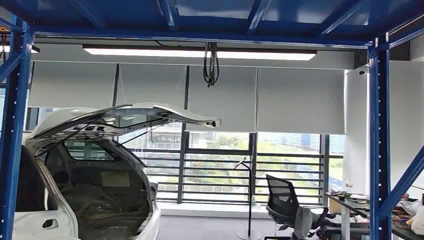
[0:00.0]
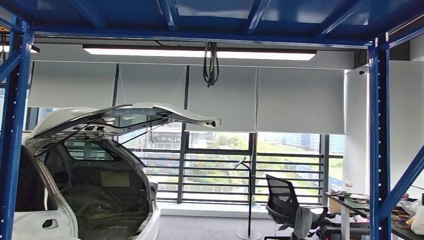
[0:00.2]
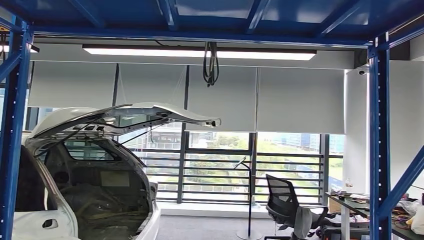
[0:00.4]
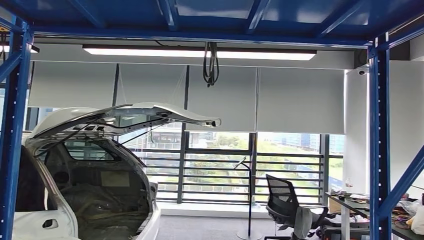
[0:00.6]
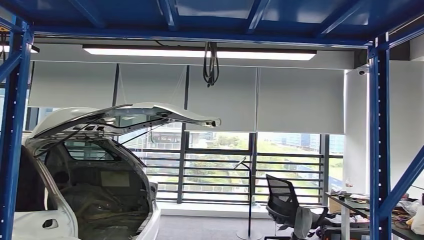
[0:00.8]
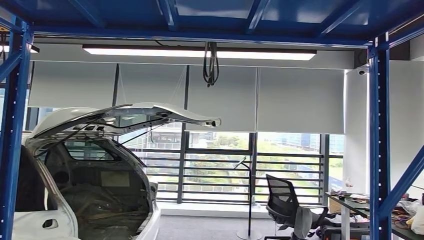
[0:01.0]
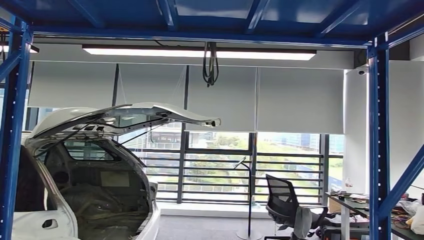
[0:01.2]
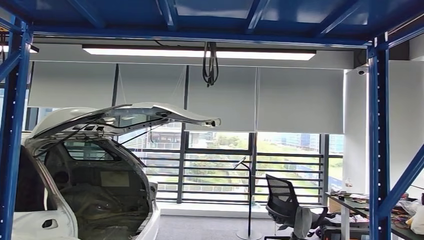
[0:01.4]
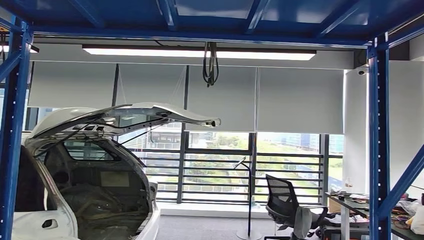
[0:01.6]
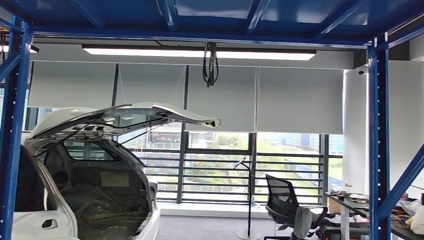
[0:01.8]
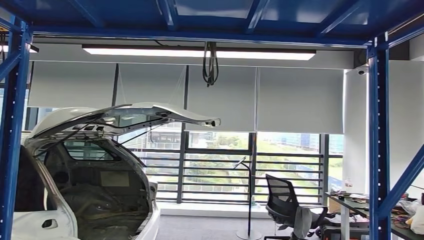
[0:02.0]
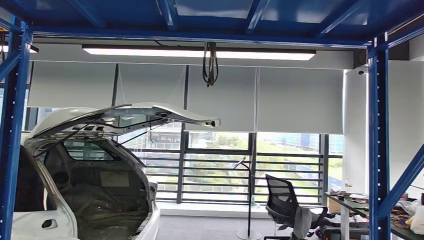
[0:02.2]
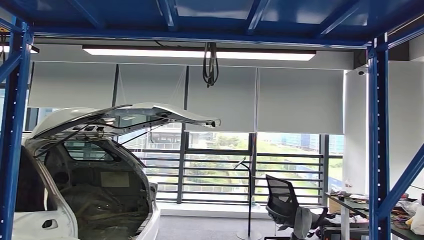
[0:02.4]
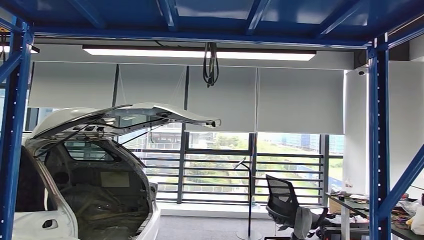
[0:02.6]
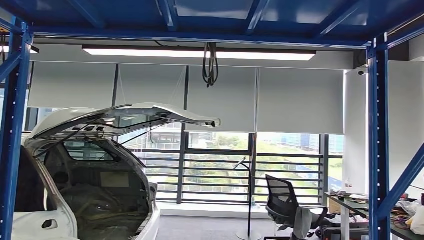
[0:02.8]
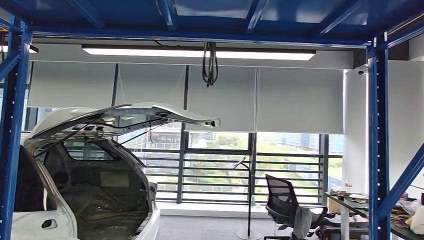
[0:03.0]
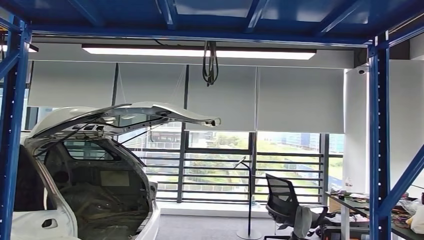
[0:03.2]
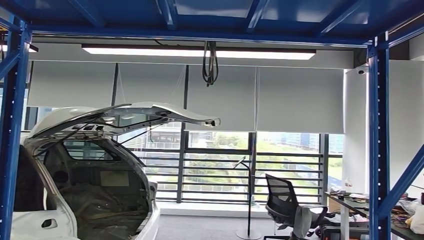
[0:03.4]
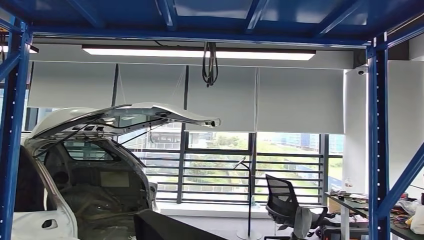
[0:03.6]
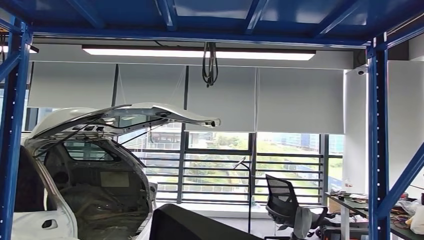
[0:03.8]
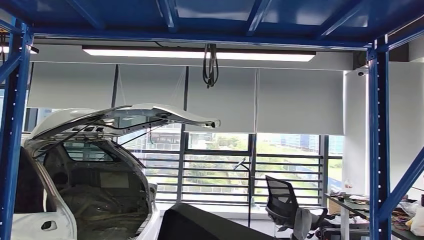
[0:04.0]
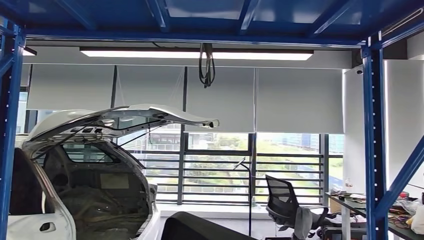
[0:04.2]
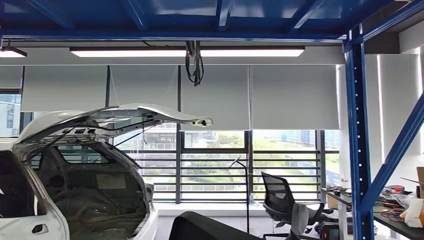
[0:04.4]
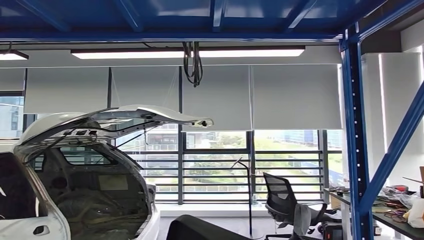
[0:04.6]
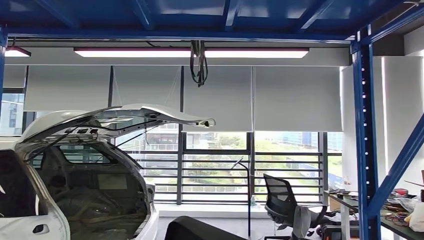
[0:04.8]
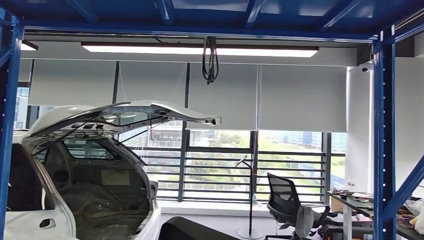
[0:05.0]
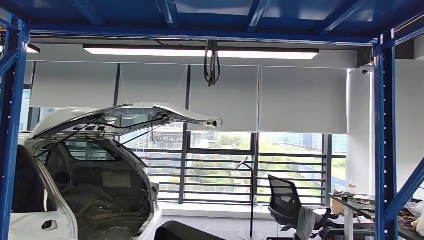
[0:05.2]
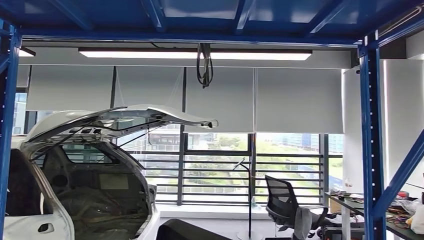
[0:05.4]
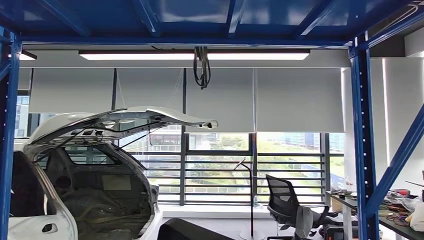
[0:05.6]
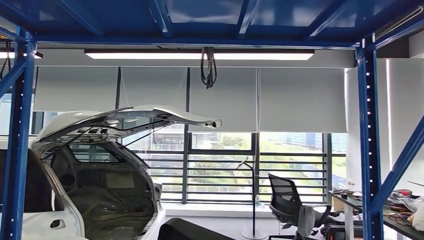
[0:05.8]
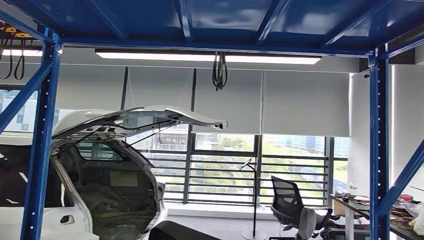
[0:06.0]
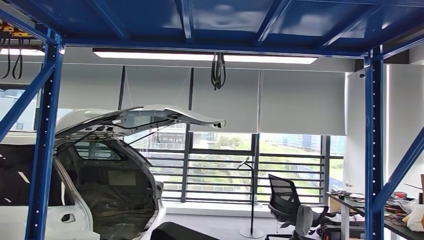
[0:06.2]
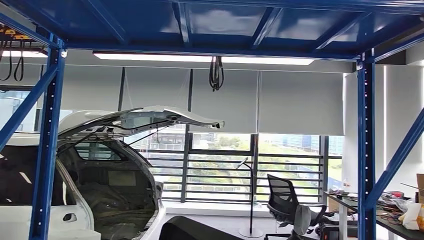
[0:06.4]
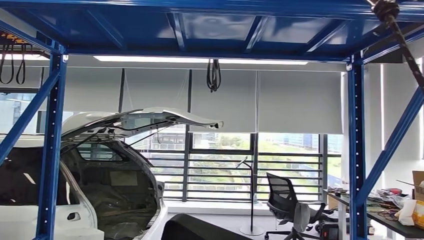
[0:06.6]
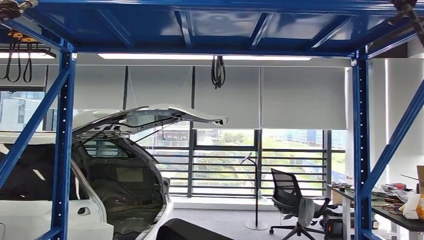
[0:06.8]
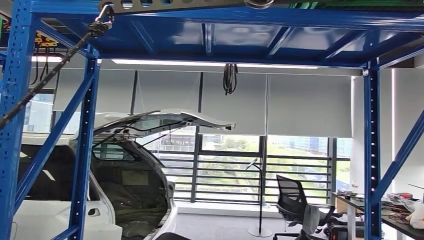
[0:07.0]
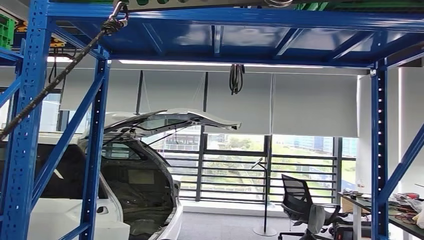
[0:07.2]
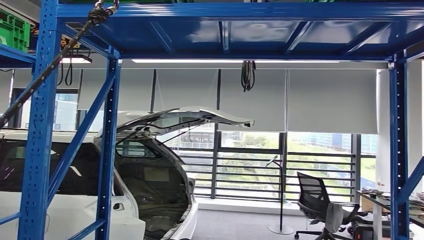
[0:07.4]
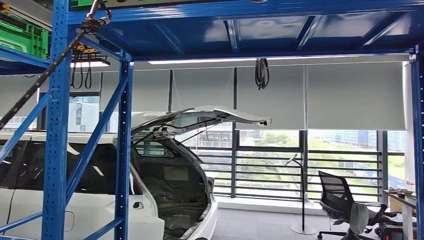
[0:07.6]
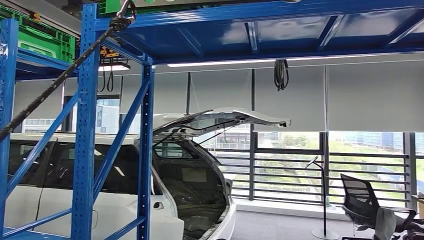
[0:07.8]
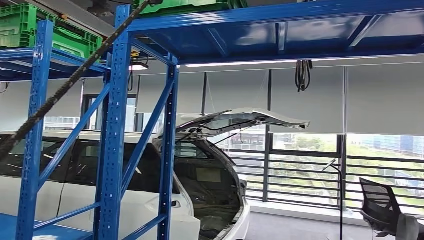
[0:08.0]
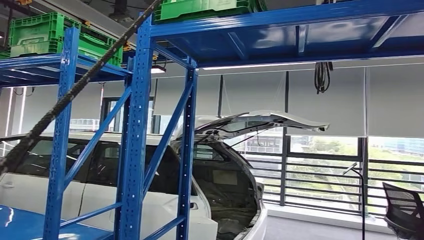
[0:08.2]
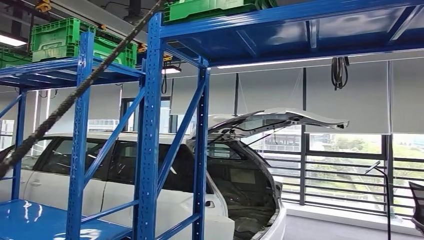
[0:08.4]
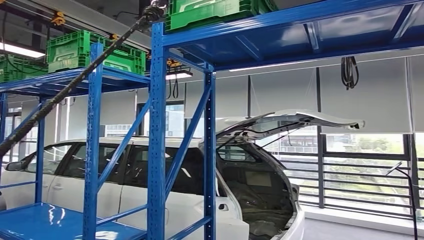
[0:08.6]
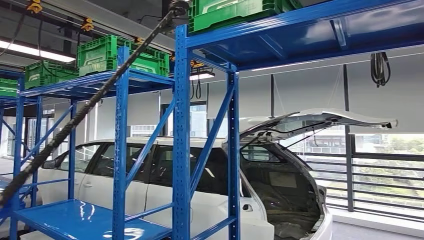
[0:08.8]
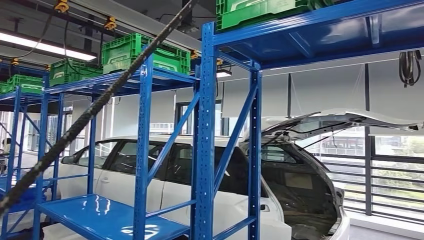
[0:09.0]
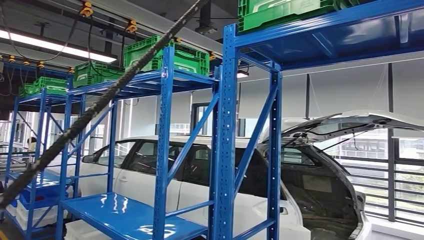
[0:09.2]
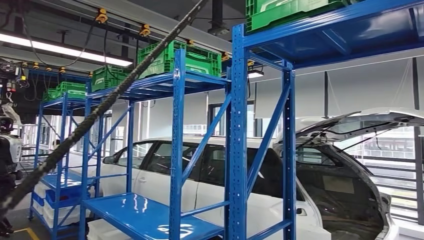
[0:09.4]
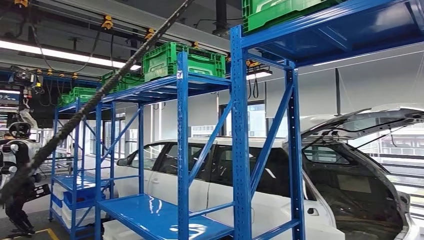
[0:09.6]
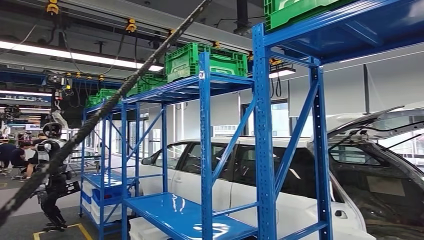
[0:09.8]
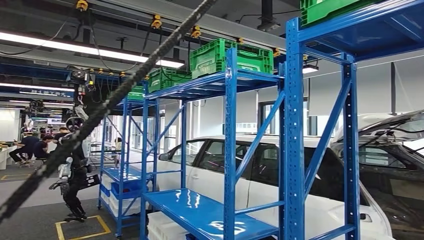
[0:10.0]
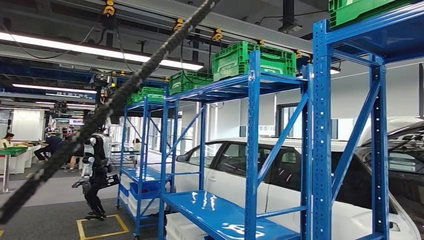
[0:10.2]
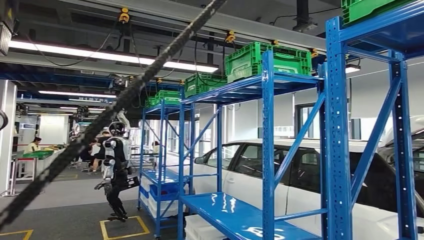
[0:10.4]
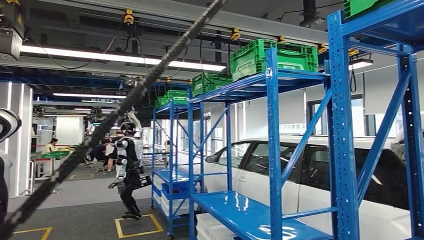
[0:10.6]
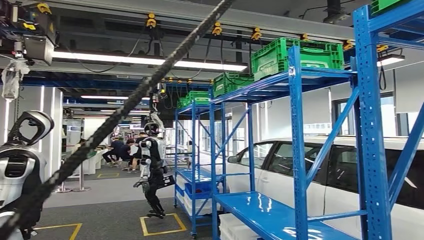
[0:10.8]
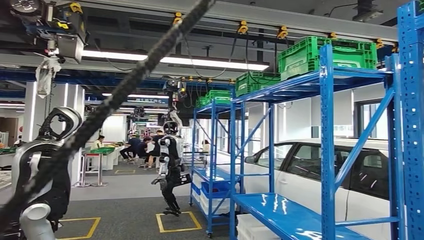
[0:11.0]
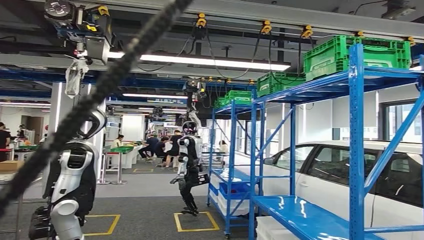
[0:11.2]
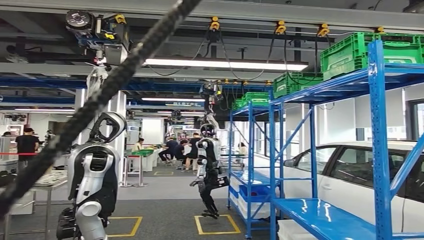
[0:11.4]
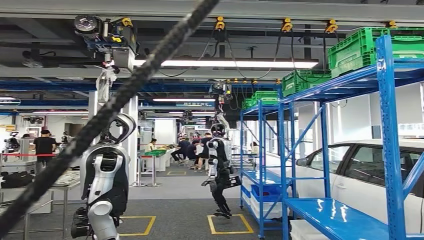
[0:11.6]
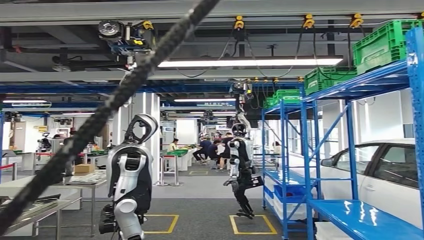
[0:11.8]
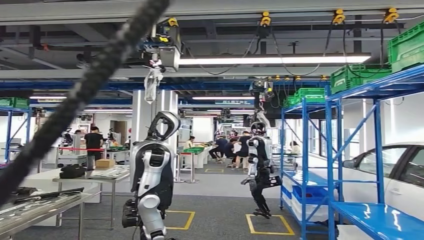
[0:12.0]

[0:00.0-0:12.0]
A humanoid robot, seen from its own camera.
Step, 0:00.0 to 0:02.8: Pick up the small component from the shelf.
0:01.6 to 0:03.0: There are only small adjustments of the hands.

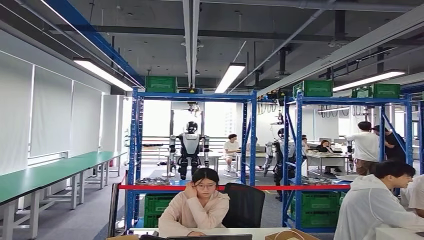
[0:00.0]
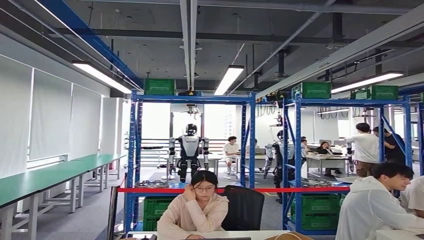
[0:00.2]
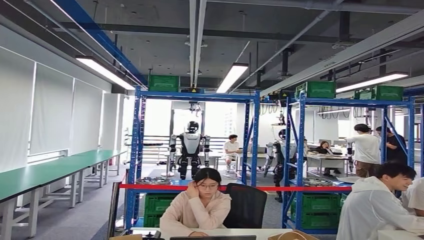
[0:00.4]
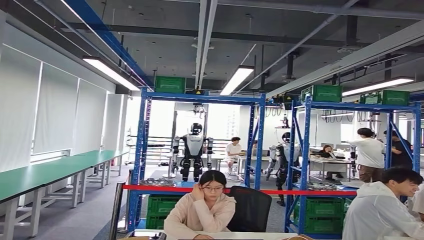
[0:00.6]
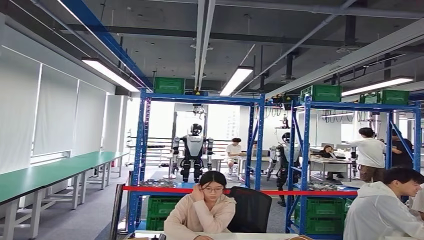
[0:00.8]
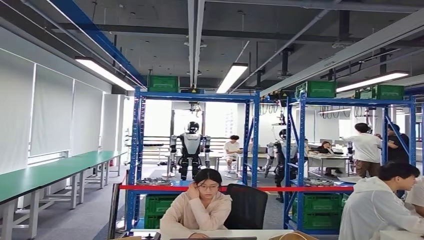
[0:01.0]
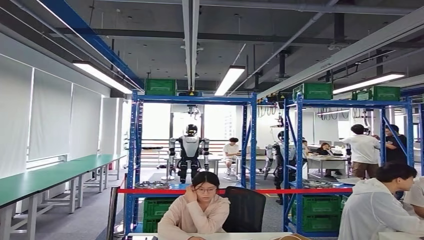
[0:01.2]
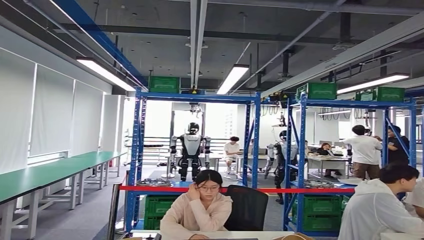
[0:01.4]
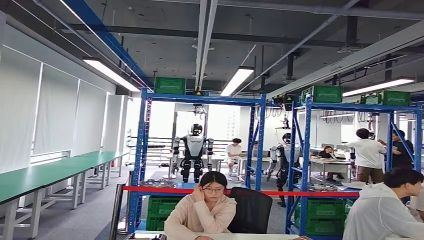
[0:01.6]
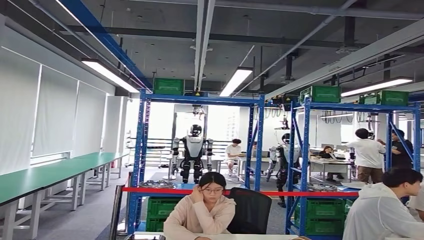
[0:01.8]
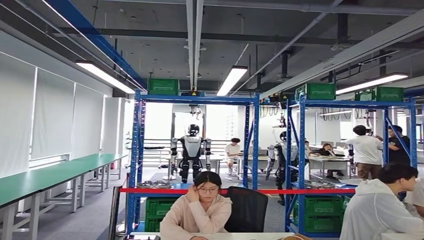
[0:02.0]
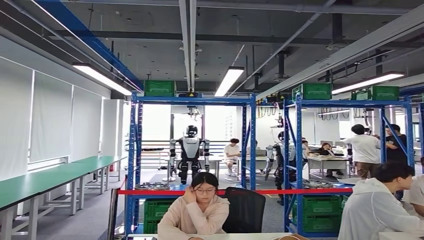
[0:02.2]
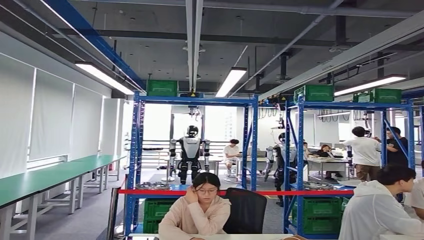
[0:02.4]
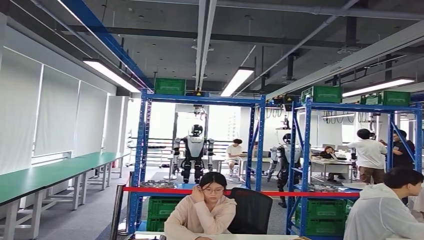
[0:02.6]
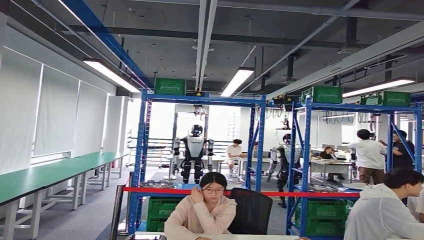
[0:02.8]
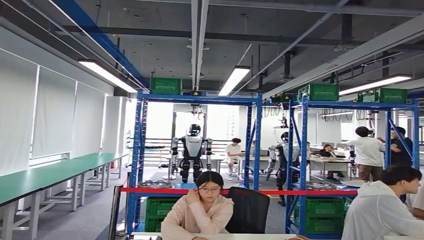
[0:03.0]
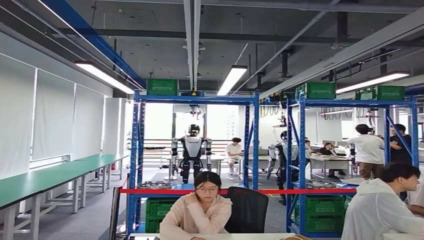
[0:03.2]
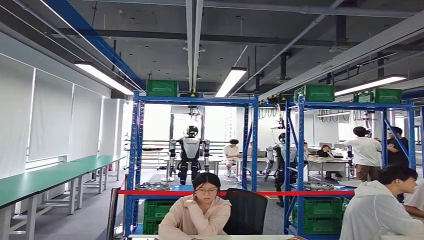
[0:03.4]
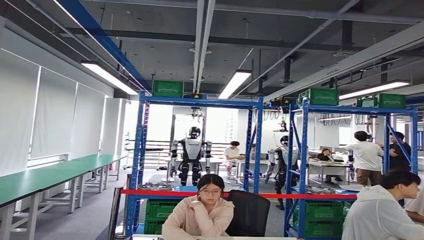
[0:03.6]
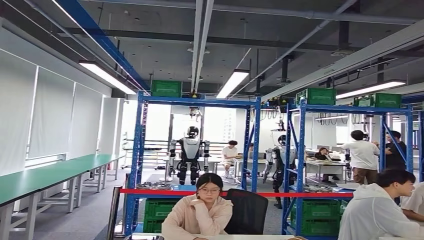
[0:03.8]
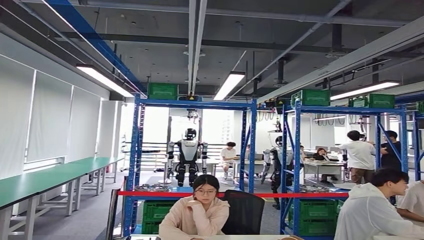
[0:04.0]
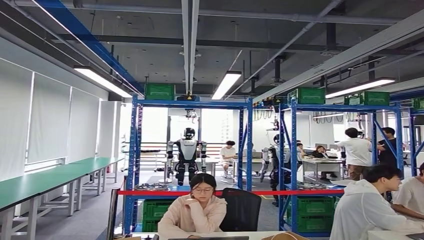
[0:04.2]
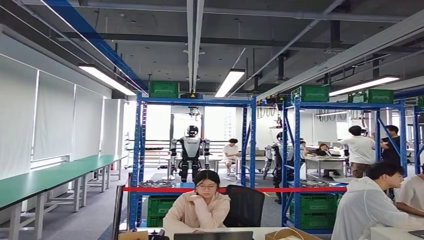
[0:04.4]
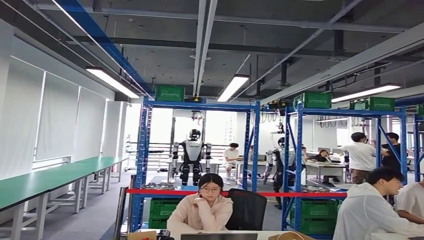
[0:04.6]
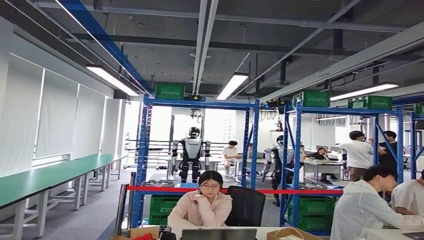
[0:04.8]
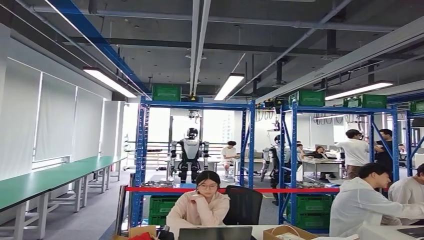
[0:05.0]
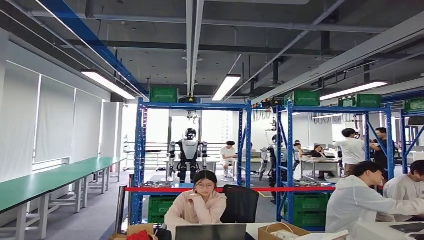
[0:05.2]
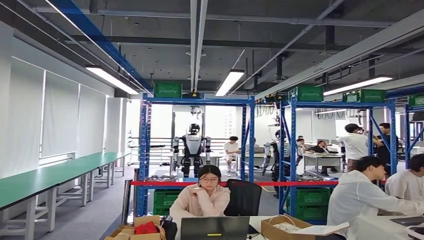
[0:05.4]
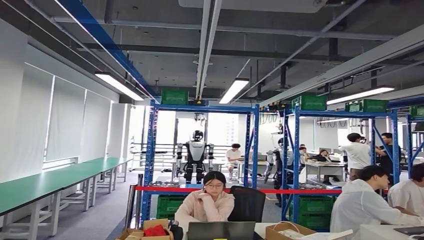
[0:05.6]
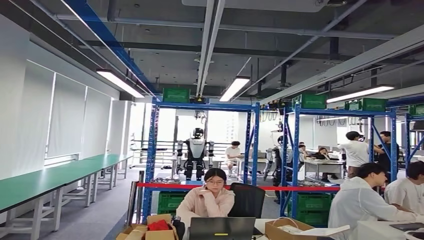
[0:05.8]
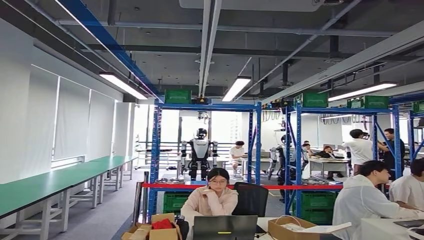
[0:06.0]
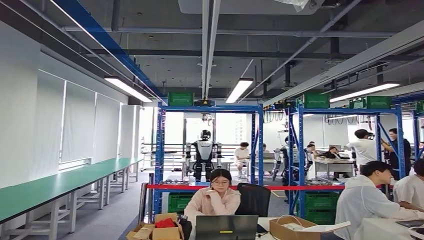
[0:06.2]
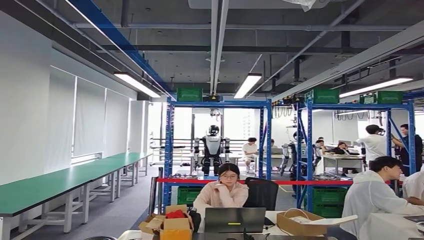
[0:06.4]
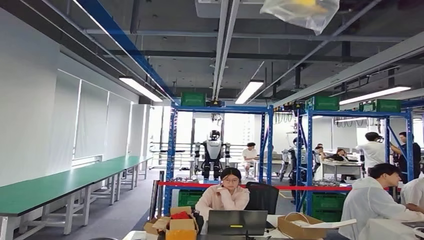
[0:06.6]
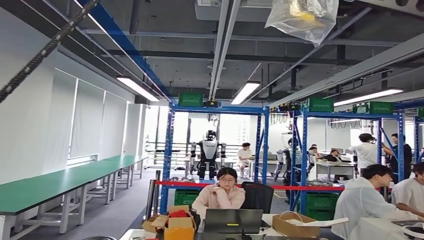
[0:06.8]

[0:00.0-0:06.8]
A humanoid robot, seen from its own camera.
Step, 0:00.4 to 0:03.4: Insert the small component into the corresponding slot on the workbench.
